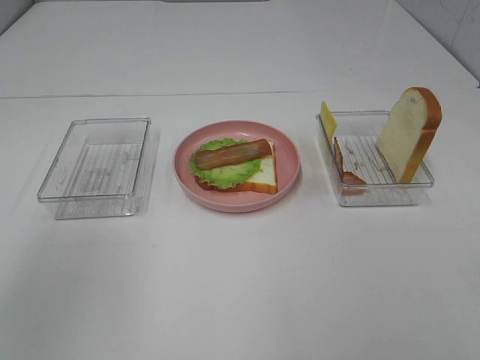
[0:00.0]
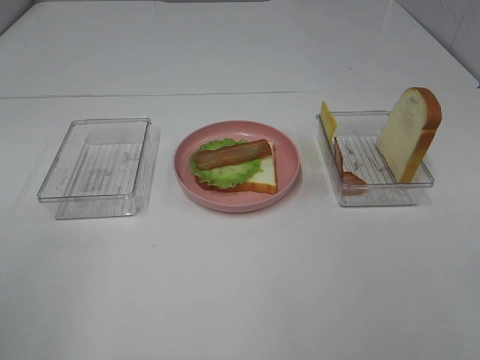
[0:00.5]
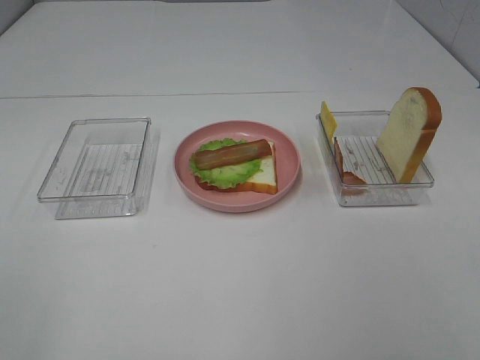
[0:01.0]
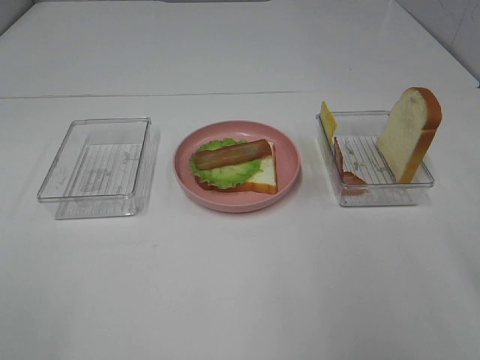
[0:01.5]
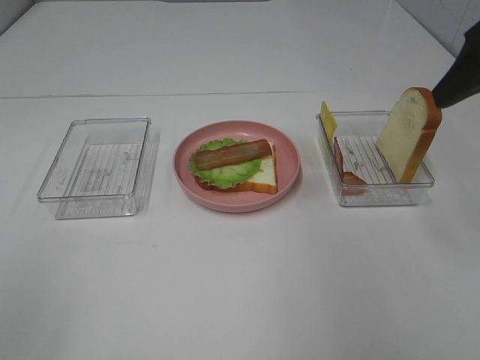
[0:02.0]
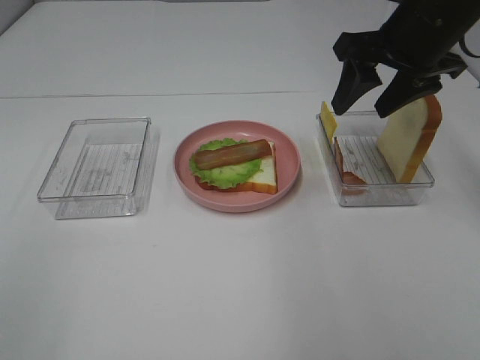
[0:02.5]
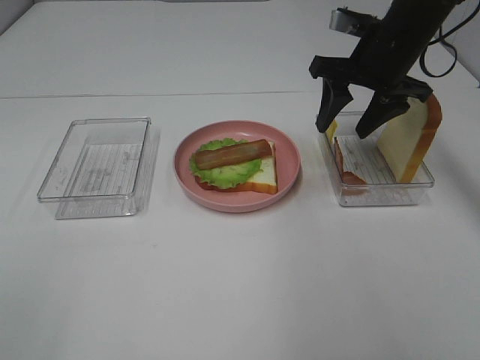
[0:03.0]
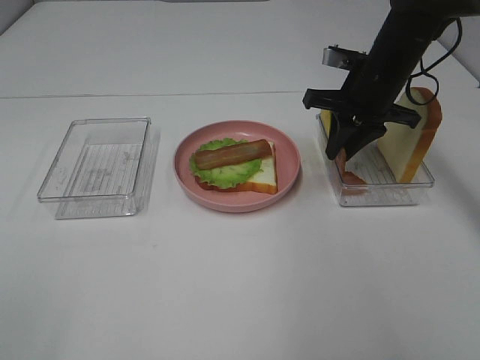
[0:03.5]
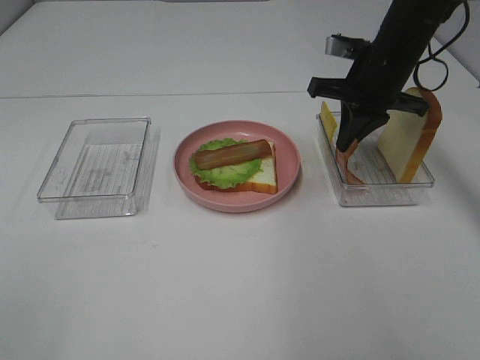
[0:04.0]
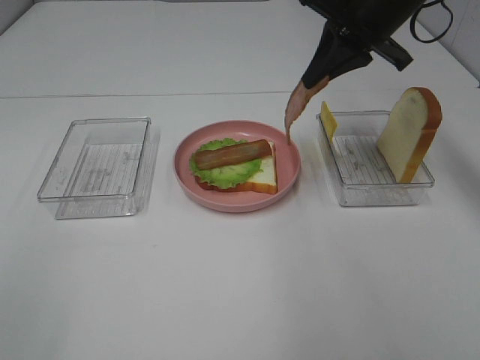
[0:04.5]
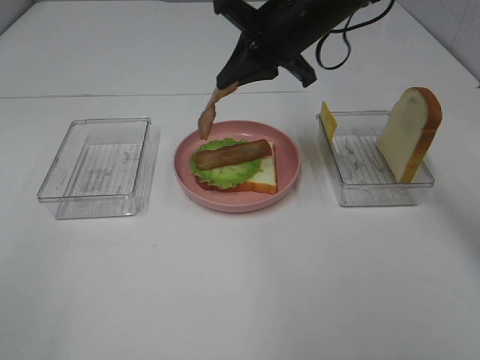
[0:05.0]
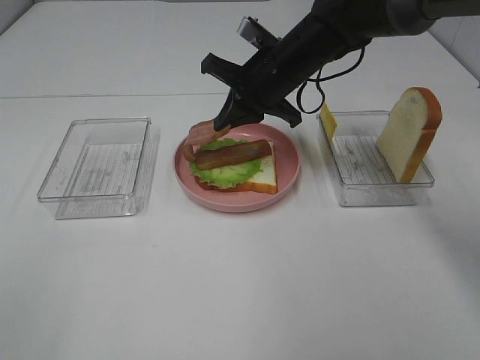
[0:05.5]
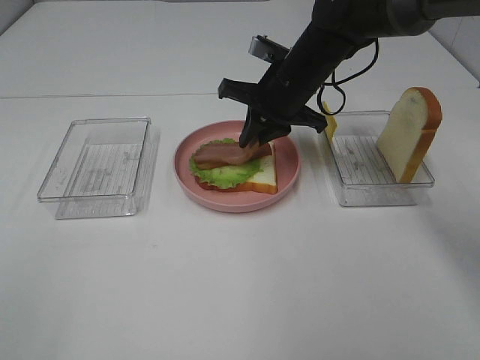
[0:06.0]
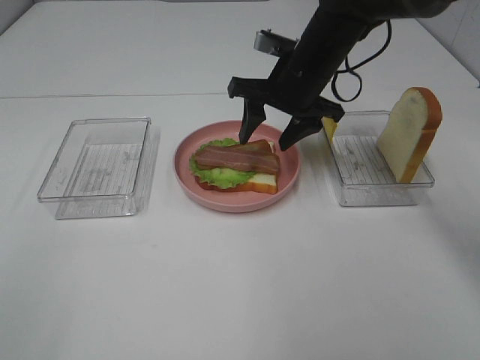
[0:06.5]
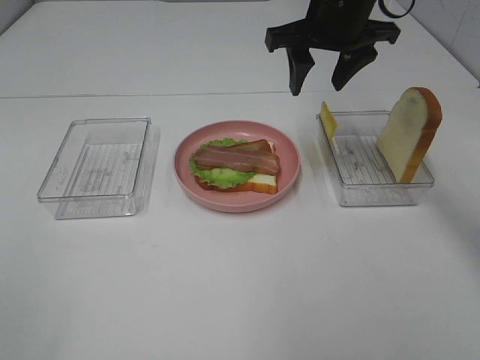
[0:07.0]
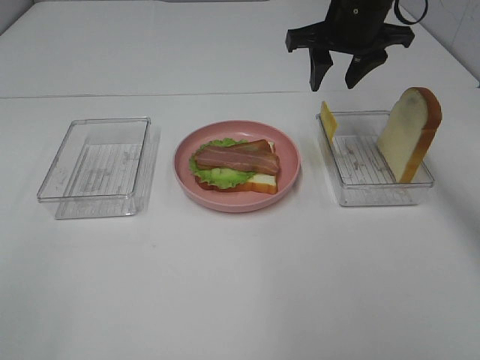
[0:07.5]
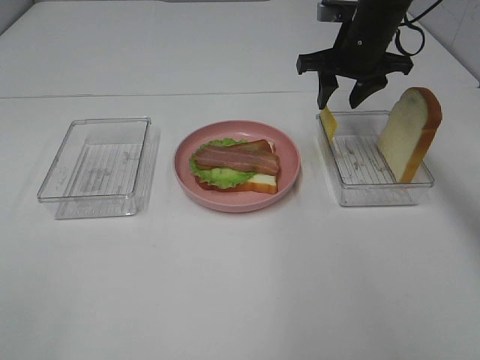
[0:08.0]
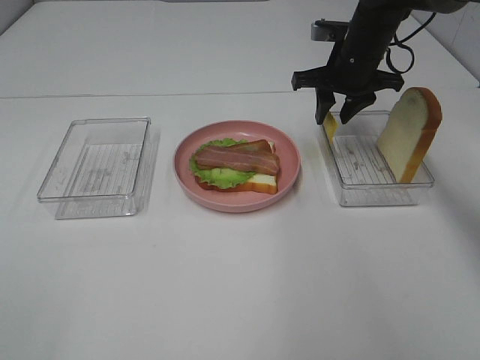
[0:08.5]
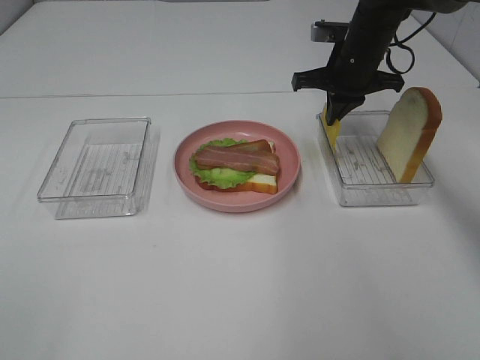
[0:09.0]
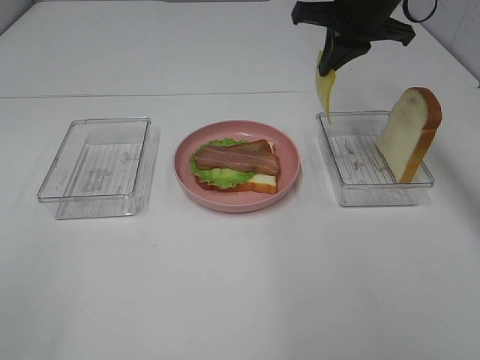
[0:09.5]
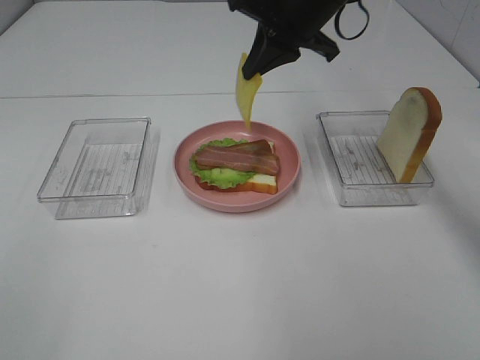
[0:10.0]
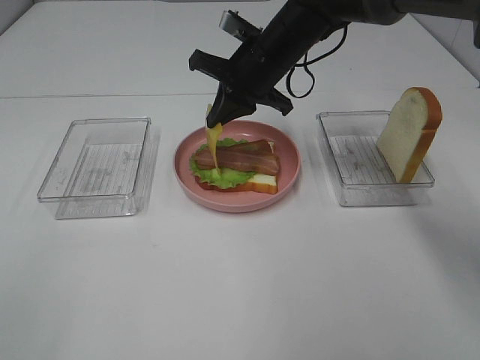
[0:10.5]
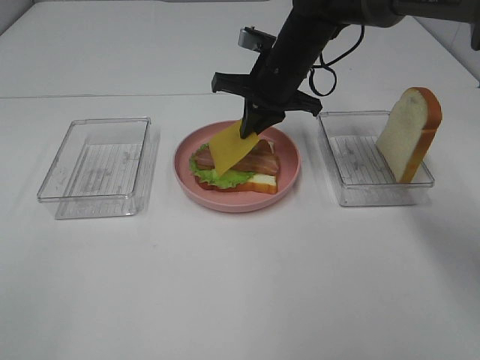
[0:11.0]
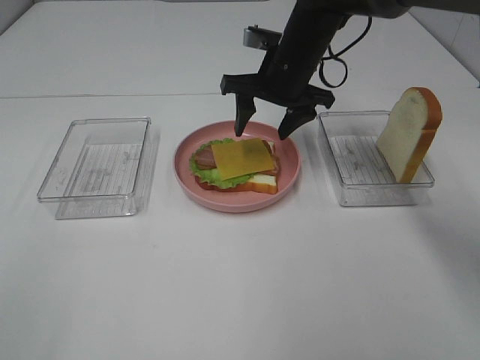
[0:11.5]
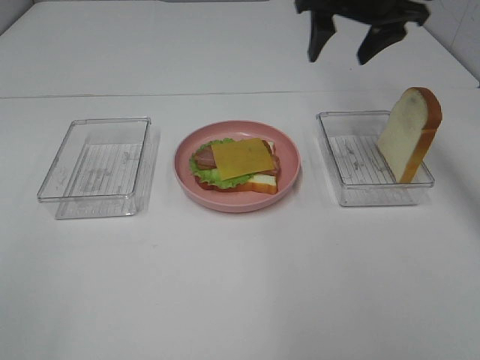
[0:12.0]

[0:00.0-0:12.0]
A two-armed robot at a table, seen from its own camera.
Task of the whole recording: Make sandwiches.
Step, 0:00.0 to 0:04.0: Right hand:grab the bacon.
Step, 0:04.5 to 0:06.5: Right hand:place bacon on bacon.
Step, 0:07.0 to 0:09.0: Right hand:grab the cheese slice.
Step, 0:09.5 to 0:11.5: Right hand:place the cheese slice on top of the bacon.
0:00.0 to 0:02.0: The right gripper heads forward, covering about 30 cm.
0:02.0 to 0:04.0: The right gripper is displaced forward, downward and to the left by roughly 20 cm, and closes.
0:04.0 to 0:06.0: The right gripper moves to the left, approximately 10 cm, and reaches approximately 10 cm upward, then returns.
0:06.0 to 0:08.0: The right gripper moves to the right and forward, roughly 10 cm, travels upward and back again, about 10 cm each way, and opens.
0:08.0 to 0:10.0: The right gripper goes roughly 10 cm to the left and upward, and closes its fingers.
0:10.0 to 0:12.0: The right gripper is displaced to the right by some 10 cm, goes downward and returns, approximately 10 cm each way, and opens its fingers.

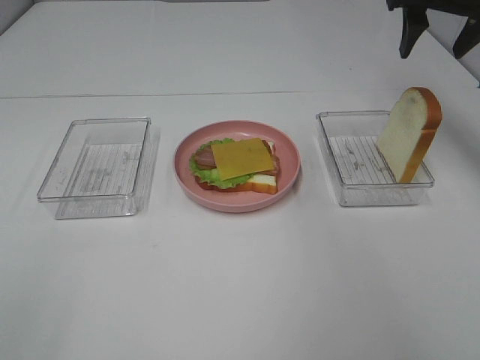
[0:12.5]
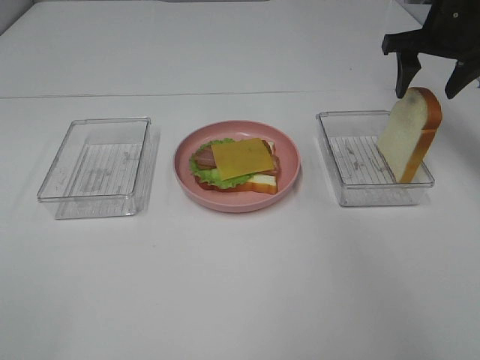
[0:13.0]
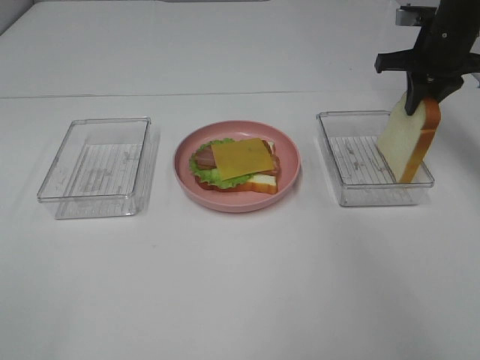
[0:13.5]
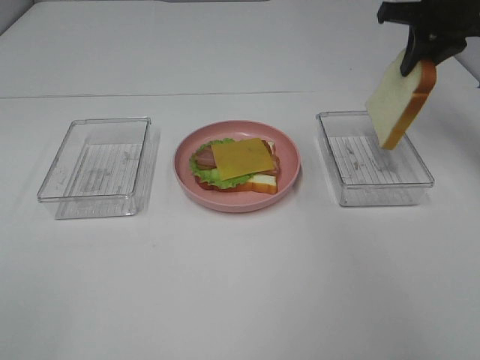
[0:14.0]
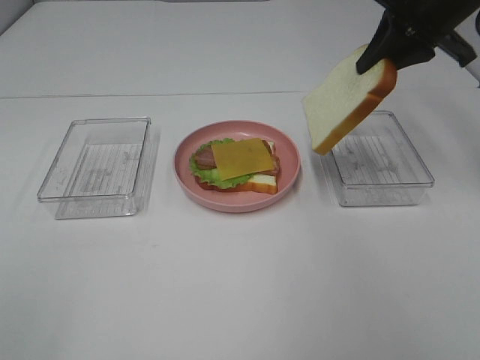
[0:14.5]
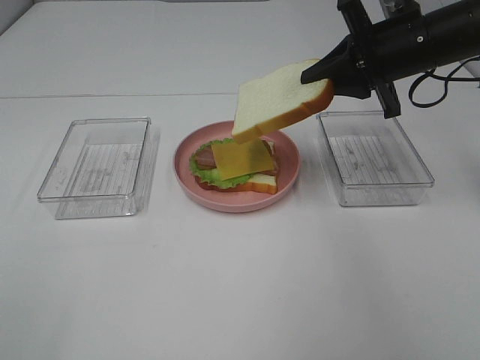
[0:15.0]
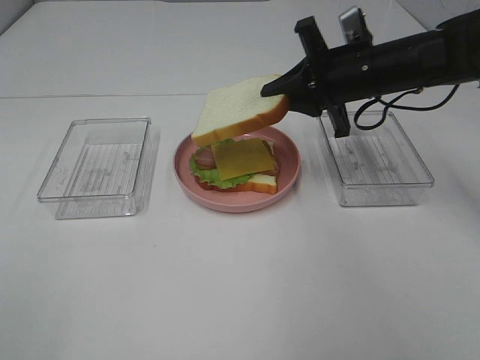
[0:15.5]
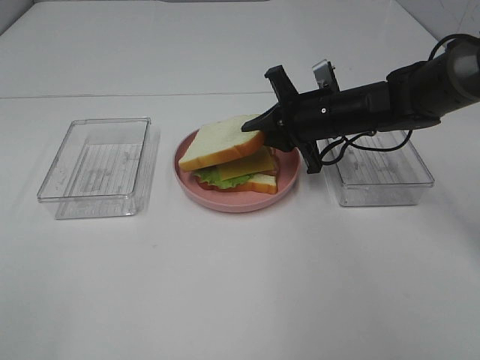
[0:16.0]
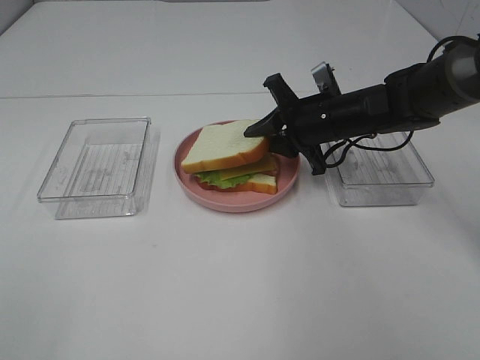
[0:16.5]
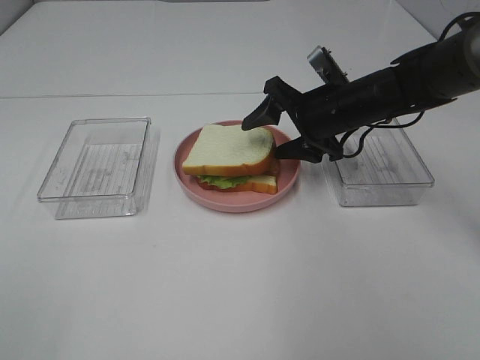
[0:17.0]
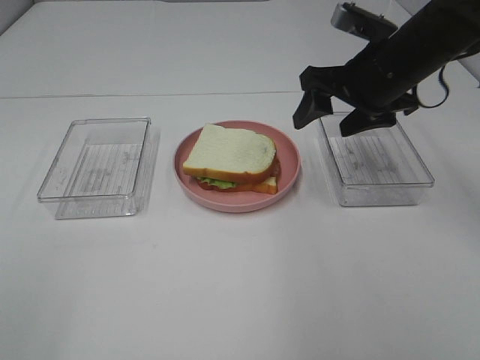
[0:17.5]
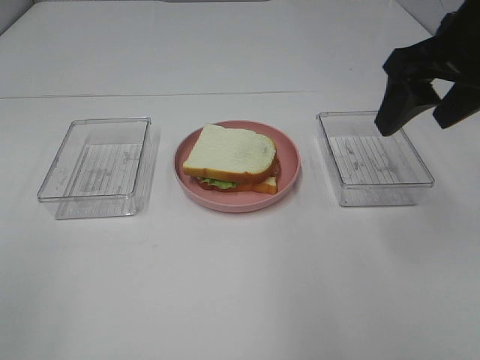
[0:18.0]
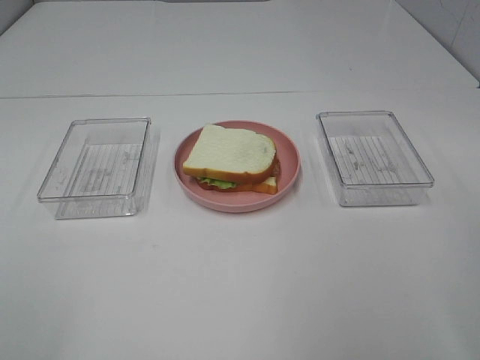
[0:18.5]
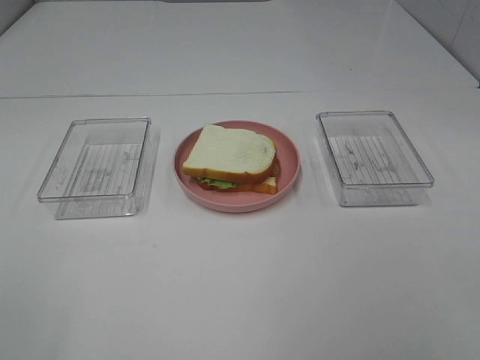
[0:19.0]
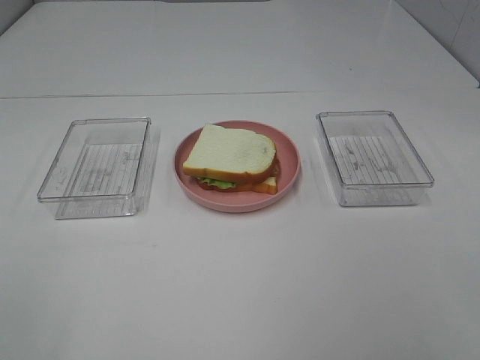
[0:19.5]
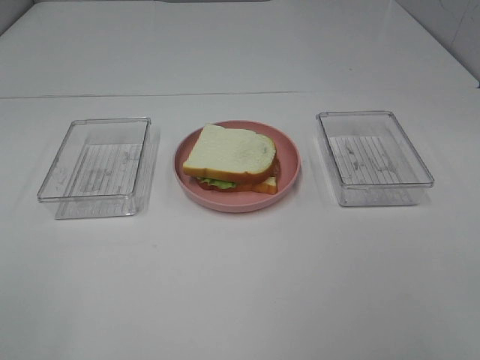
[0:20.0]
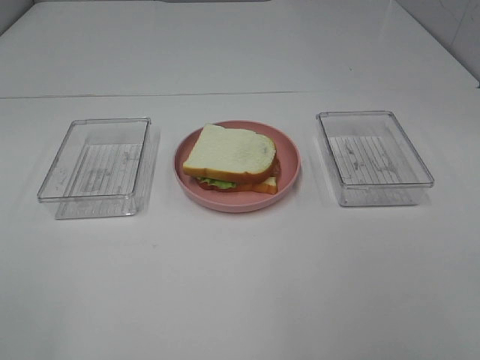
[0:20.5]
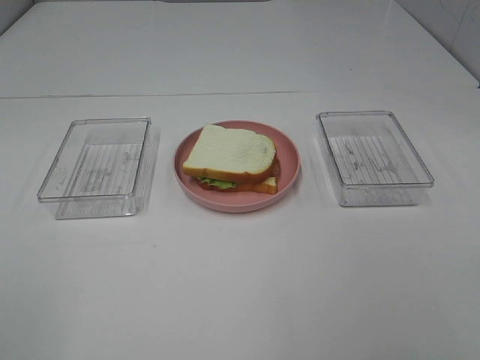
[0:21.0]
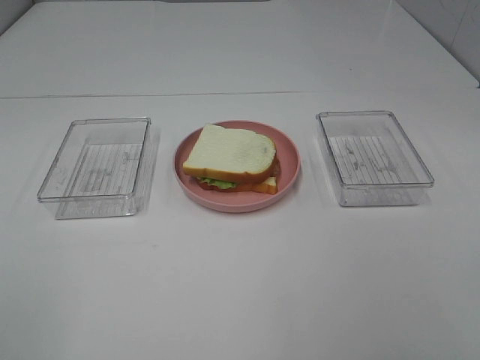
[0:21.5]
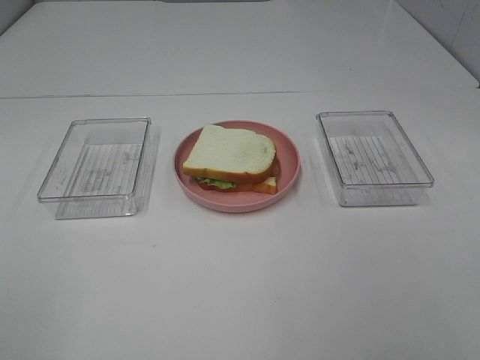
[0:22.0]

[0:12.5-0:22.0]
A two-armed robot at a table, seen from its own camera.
Task of the whole recording: Make sandwiches.
Step, 0:12.5 to 0:13.5: Right hand:grab the bread slice.
Step, 0:14.0 to 0:17.0: Right hand:place the bread slice on the cheese slice.
0:12.5 to 0:14.5: The right gripper moves roughly 10 cm downward and comes back, and closes.
0:14.5 to 0:16.5: The right gripper goes some 20 cm downward and to the left.
0:16.5 to 0:18.0: The right gripper shifts roughly 25 cm upward and backward, and opens its fingers.
0:18.0 to 0:20.0: The right gripper heads backward, covering about 25 cm.

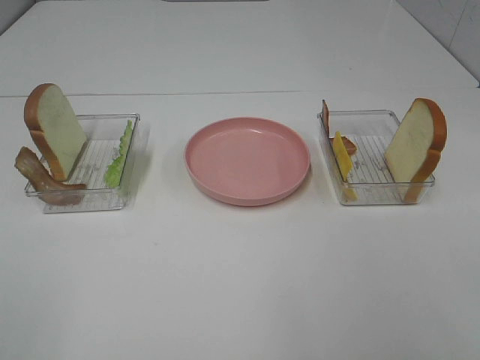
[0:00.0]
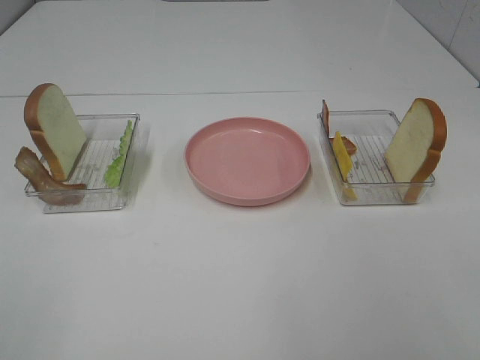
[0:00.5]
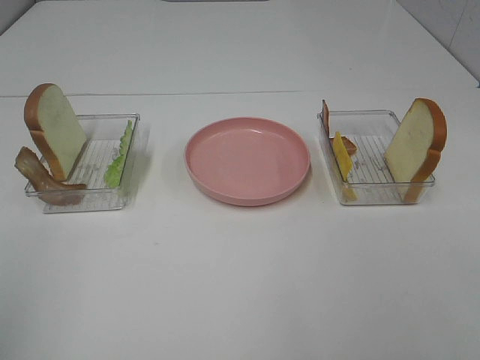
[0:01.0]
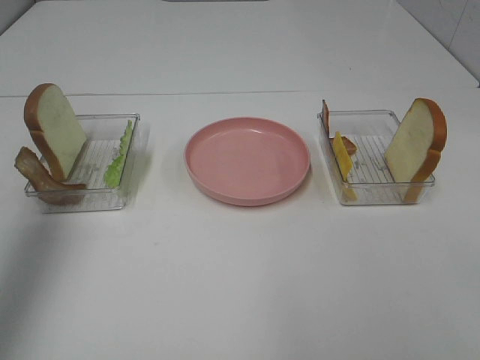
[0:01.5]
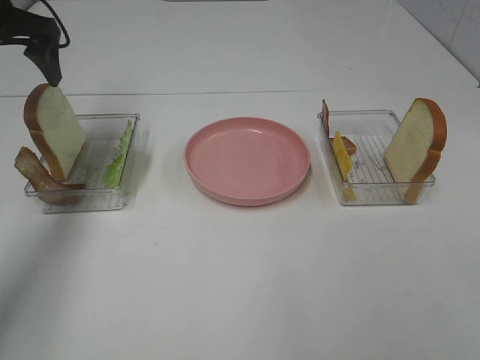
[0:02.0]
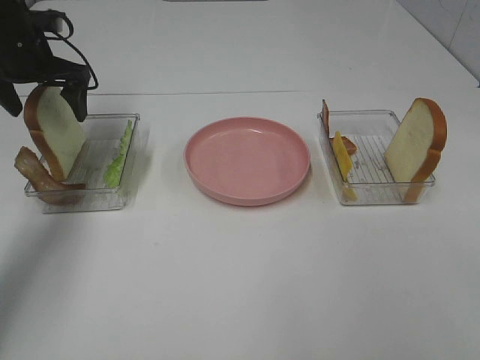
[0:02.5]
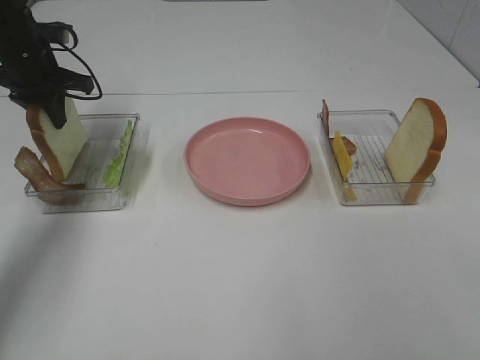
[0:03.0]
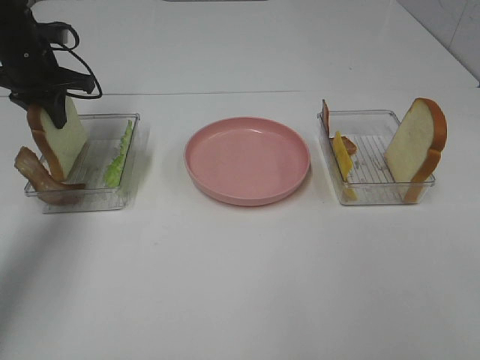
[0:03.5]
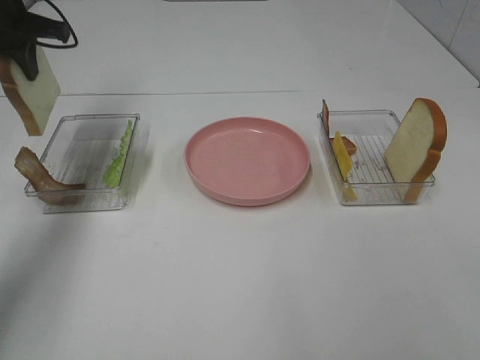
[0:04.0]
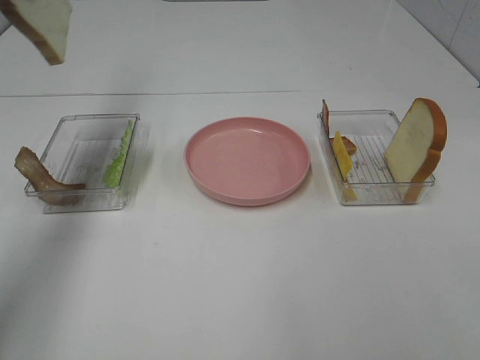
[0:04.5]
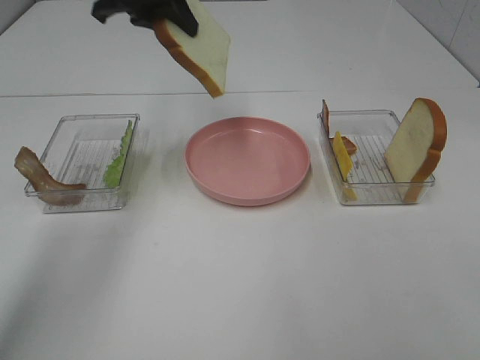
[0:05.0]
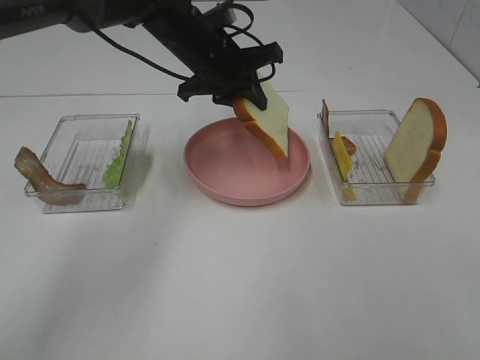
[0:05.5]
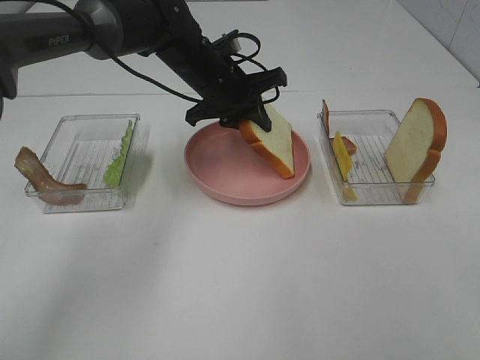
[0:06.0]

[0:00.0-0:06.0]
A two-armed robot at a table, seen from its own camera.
Task of the whole recording: Make sandwiches.
Step, 0:00.0 to 0:03.0: Left hand:grab the bread slice.
0:00.0 to 0:02.0: The left gripper heads forward, covering some 50 cm.
0:02.0 to 0:04.0: The left gripper travels downward and back again, approximately 10 cm each way, and closes up.
0:04.0 to 0:06.0: The left gripper moves to the right and downward, roughly 30 cm.
